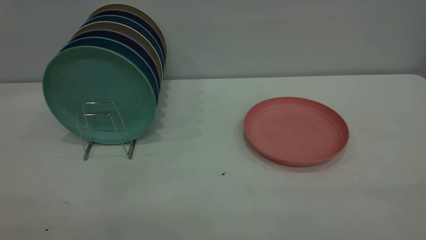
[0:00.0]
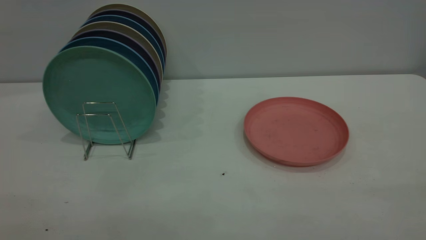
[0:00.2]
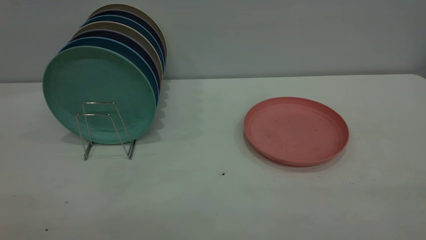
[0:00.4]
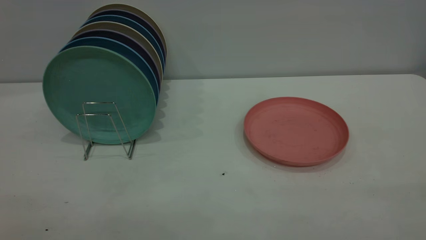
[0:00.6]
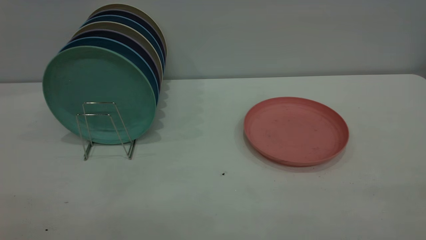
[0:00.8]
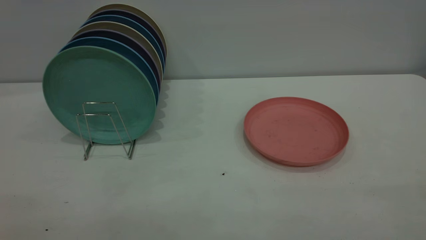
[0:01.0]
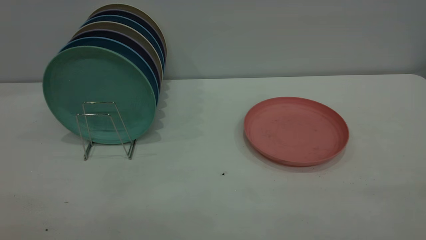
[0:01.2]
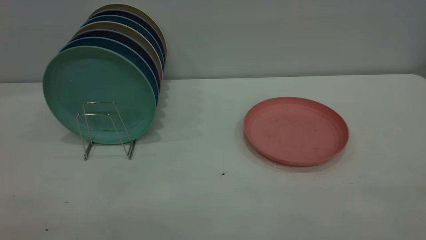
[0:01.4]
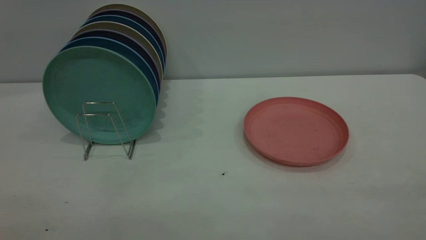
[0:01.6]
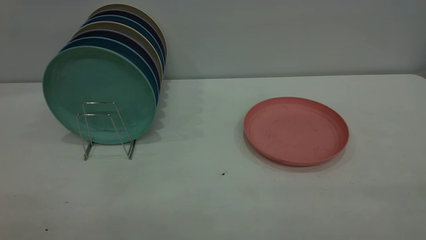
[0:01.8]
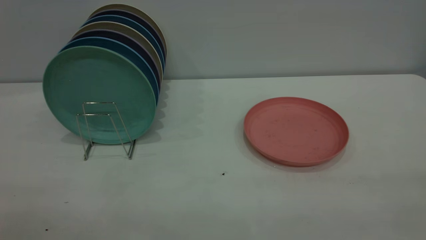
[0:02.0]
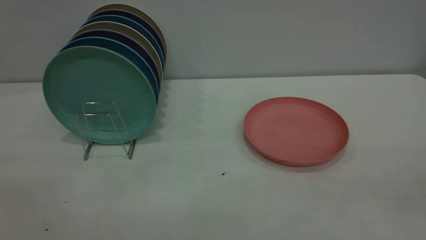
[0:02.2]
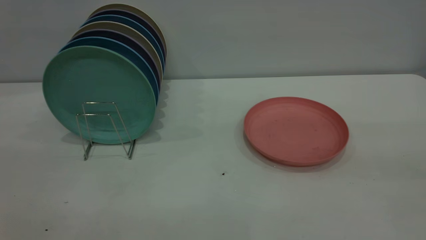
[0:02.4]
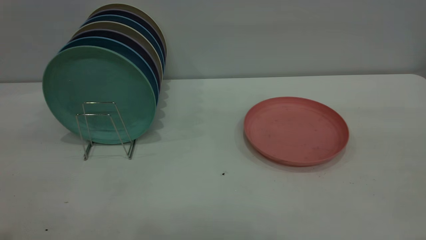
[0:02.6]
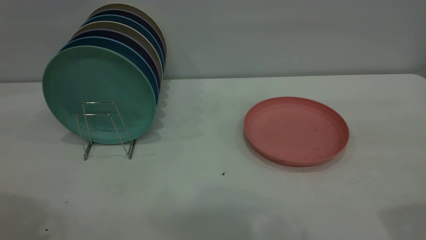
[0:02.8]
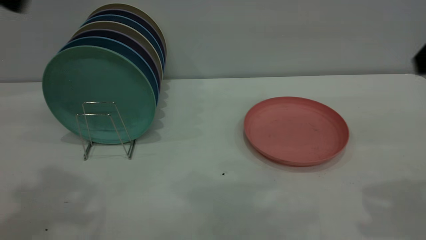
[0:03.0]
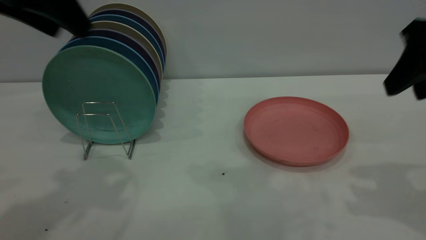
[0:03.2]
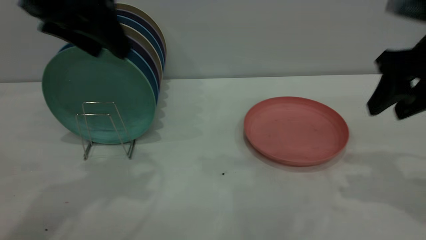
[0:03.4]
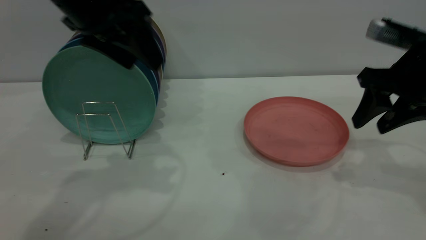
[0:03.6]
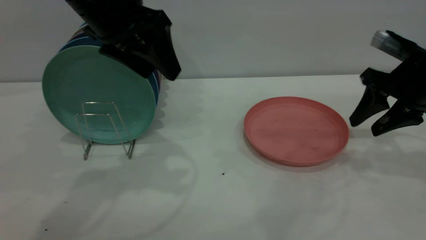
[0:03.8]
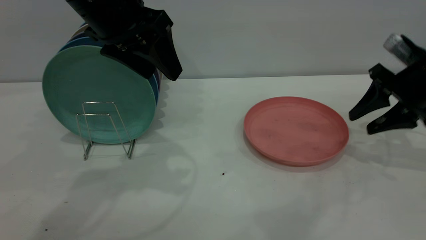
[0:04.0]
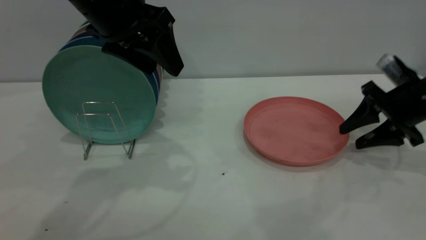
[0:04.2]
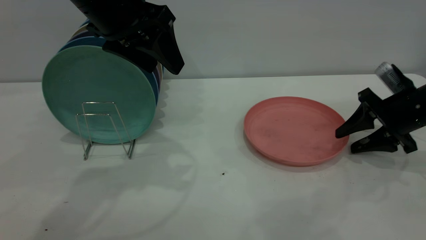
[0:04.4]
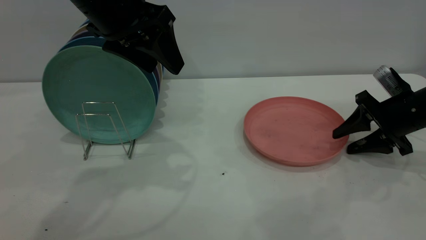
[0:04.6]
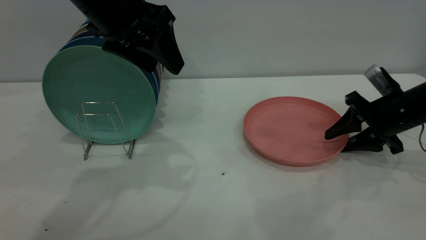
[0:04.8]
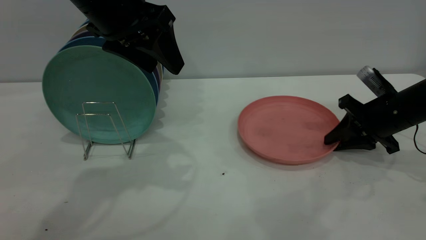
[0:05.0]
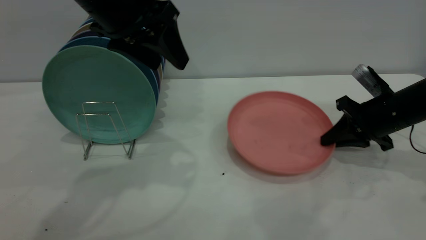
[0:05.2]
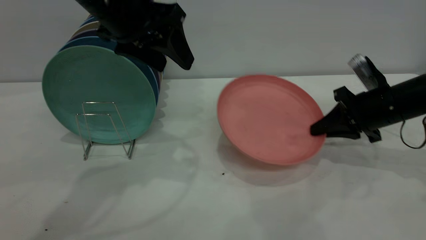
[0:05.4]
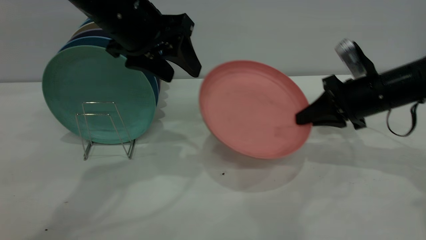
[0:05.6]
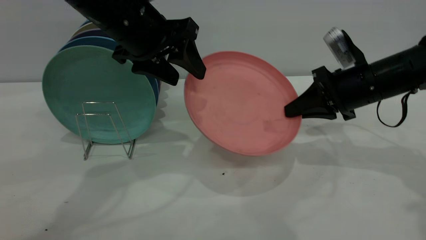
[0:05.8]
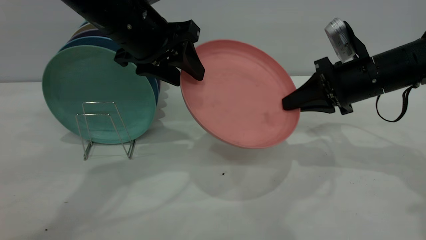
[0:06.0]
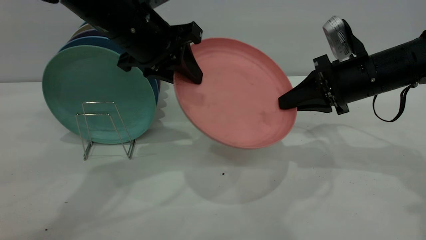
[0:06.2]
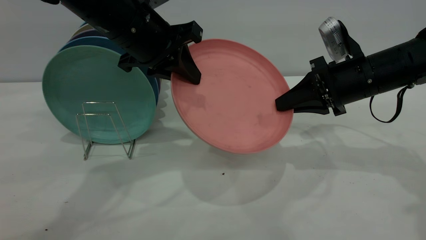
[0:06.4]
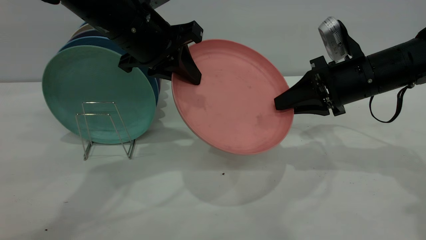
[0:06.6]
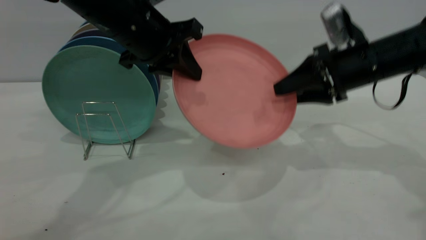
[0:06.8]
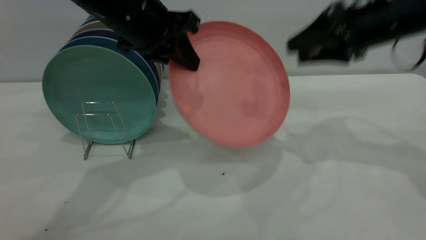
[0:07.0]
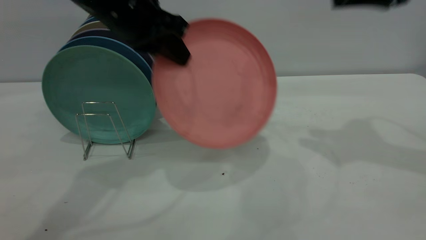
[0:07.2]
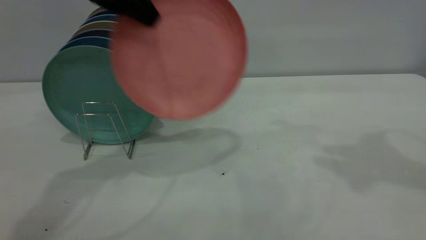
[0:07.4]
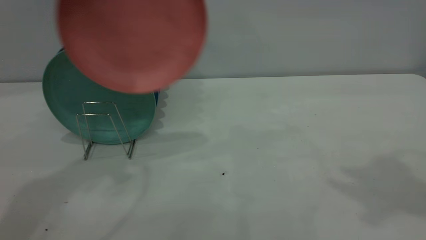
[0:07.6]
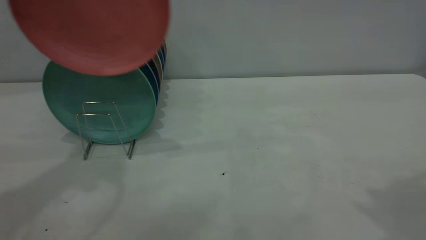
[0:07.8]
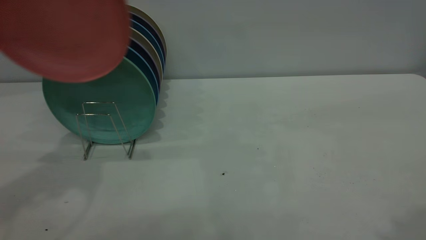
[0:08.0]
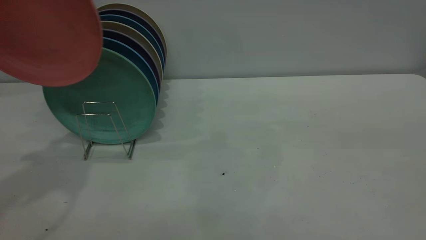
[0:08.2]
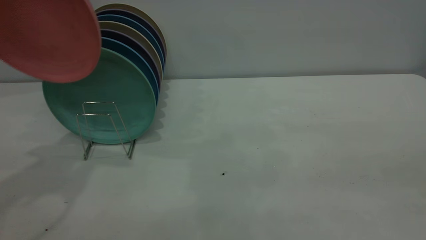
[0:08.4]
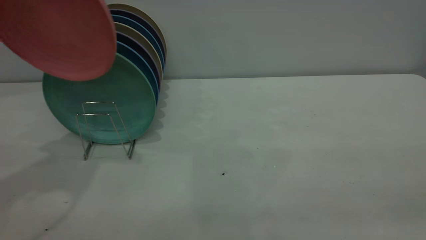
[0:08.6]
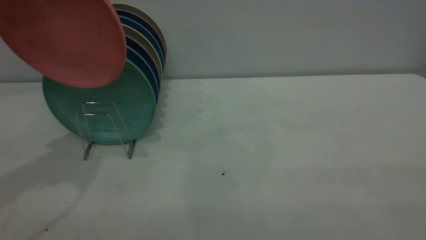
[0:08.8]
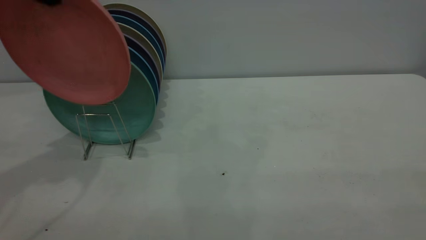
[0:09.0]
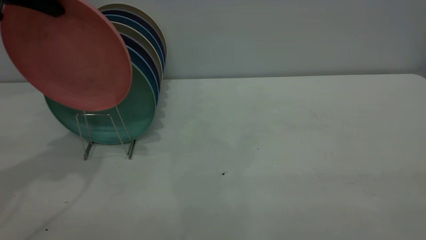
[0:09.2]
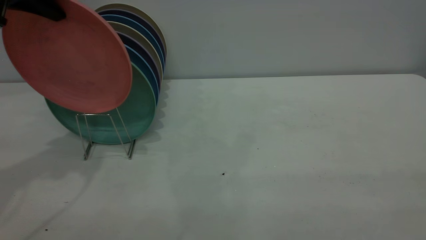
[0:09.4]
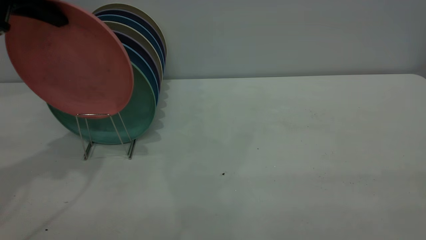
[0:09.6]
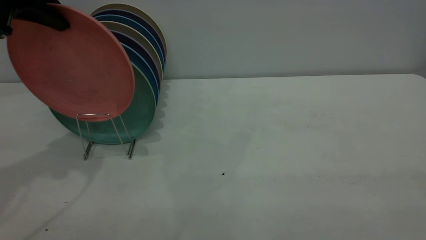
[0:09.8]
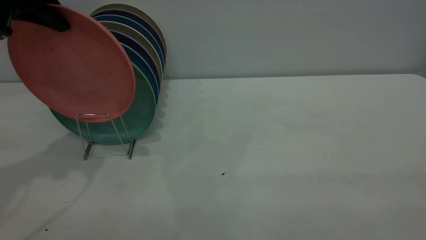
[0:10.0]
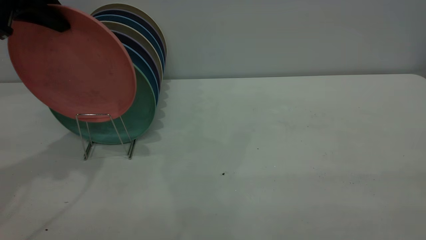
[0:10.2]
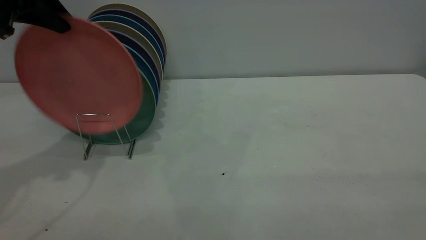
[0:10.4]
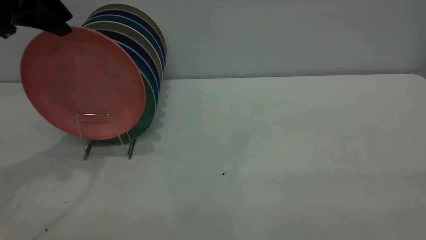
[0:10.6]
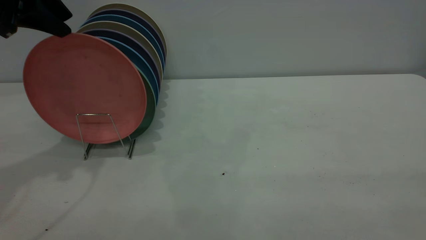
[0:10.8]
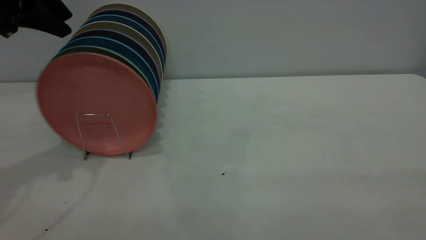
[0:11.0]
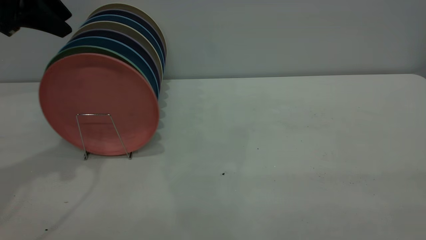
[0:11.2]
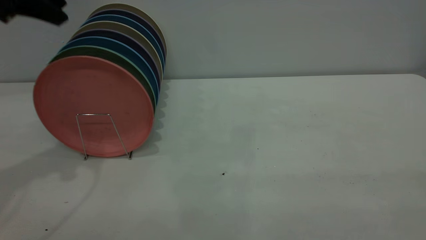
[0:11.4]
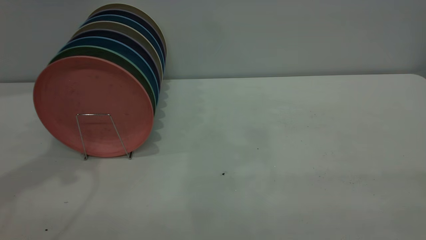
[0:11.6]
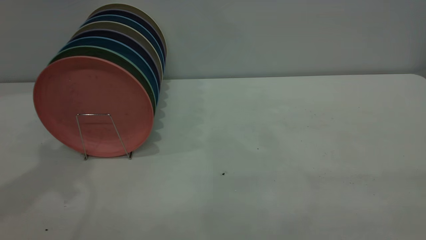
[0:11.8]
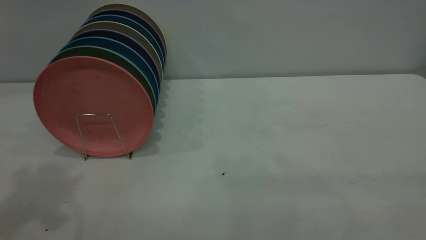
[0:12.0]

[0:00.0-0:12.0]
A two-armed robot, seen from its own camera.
Task of the whole recording: the right gripper grasp the pink plate, the right gripper pass the pink plate to the left gripper, and the left gripper place the pink plate on the plate rack.
Step, 0:00.0 to 0:05.2: Pick up the plate with the right gripper.
Step, 0:05.6 to 0:07.0: Pass the plate from the right gripper to the left gripper.
Step, 0:07.2 to 0:11.2: Place the plate on the shelf.
0:00.0 to 0:01.6: The two grippers keep their place.
0:03.0 to 0:04.4: The left gripper is displaced to the right, downward and forward by approximately 15 cm. Meanwhile the right gripper moves downward and forward, roughly 25 cm.
0:04.4 to 0:06.0: The right gripper travels to the left and upward by roughly 10 cm, and closes up. Meanwhile the left gripper moves approximately 5 cm.
0:06.0 to 0:07.6: The left gripper moves upward and to the left, approximately 15 cm, and closes its fingers. Meanwhile the right gripper shifts roughly 35 cm upward and backward, and opens.
0:07.6 to 0:09.0: The right gripper heads backward and downward, covering approximately 30 cm, while the left gripper goes some 5 cm to the left.
0:09.0 to 0:10.4: The grippers stay close to where they were, moving slightly.
0:10.4 to 0:12.0: The left gripper travels upward and backward by approximately 20 cm.
